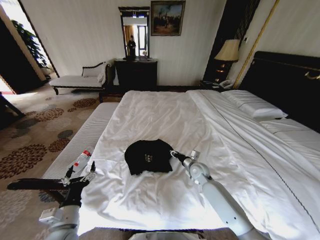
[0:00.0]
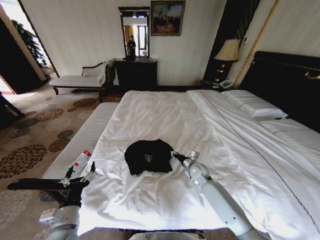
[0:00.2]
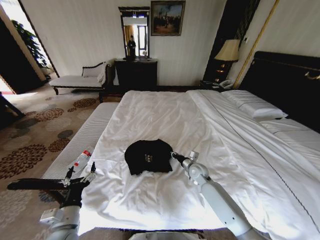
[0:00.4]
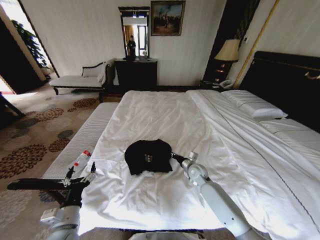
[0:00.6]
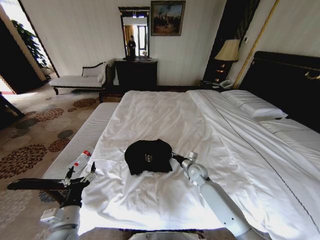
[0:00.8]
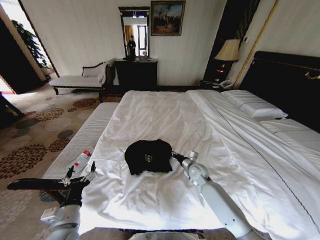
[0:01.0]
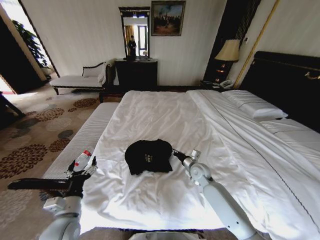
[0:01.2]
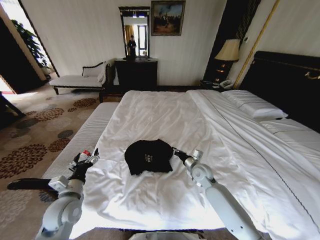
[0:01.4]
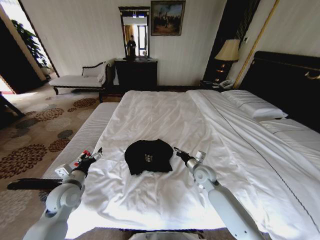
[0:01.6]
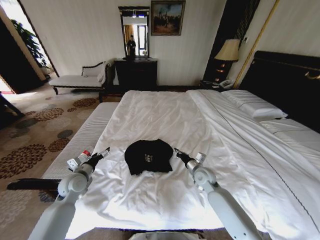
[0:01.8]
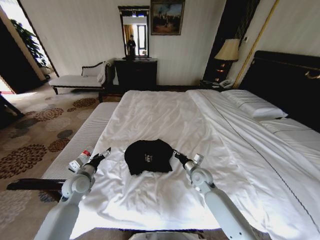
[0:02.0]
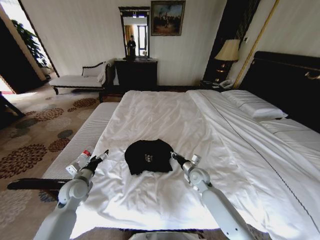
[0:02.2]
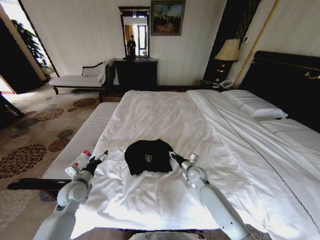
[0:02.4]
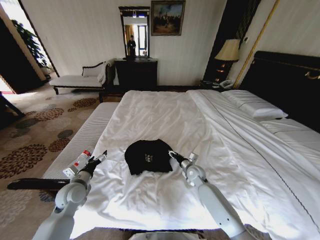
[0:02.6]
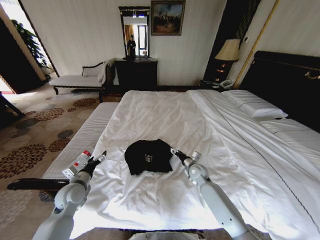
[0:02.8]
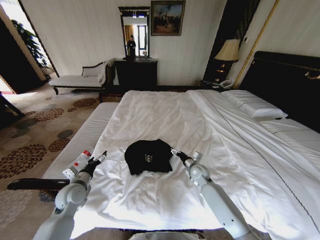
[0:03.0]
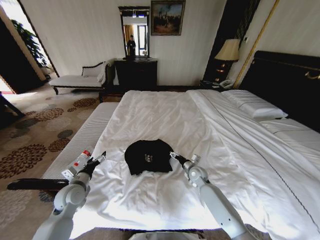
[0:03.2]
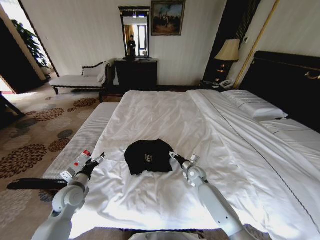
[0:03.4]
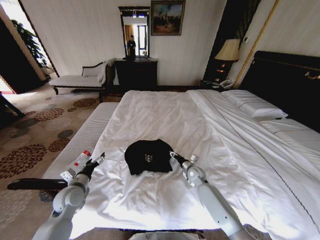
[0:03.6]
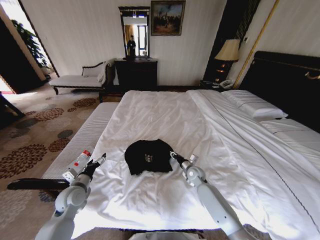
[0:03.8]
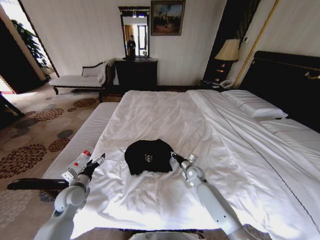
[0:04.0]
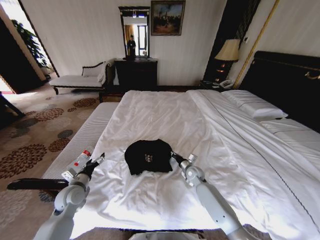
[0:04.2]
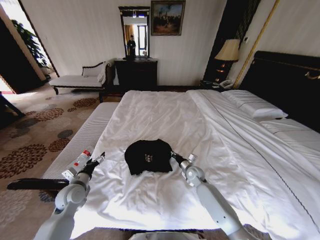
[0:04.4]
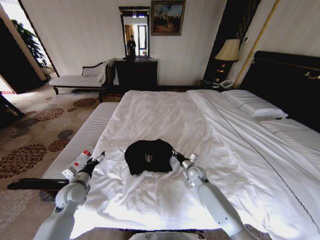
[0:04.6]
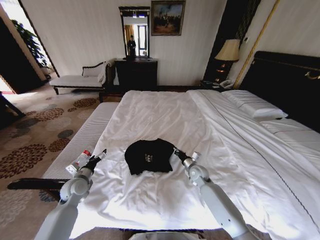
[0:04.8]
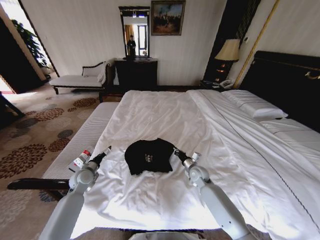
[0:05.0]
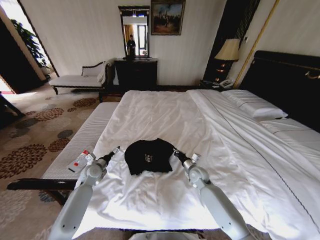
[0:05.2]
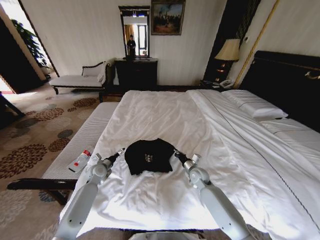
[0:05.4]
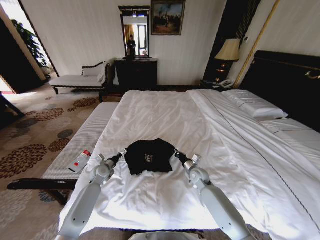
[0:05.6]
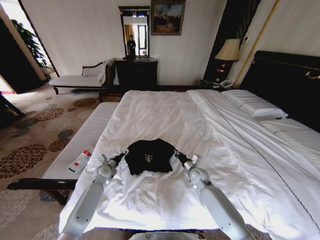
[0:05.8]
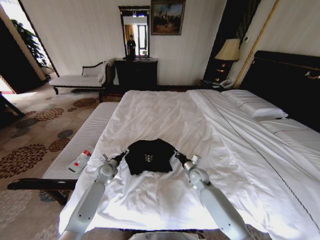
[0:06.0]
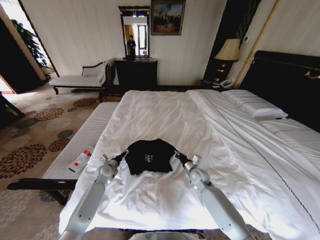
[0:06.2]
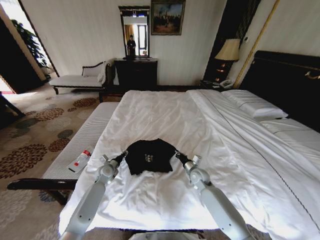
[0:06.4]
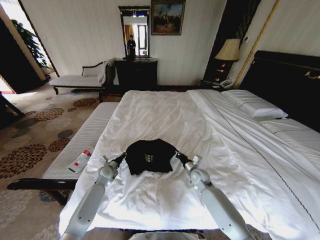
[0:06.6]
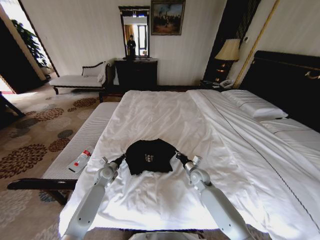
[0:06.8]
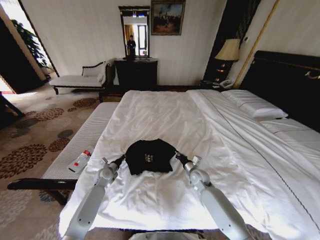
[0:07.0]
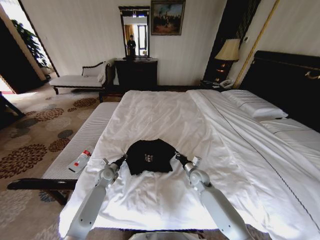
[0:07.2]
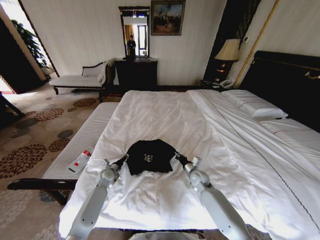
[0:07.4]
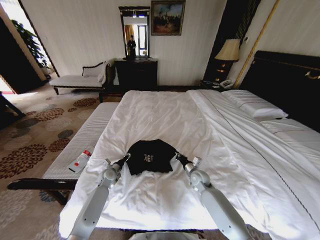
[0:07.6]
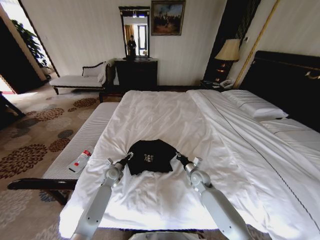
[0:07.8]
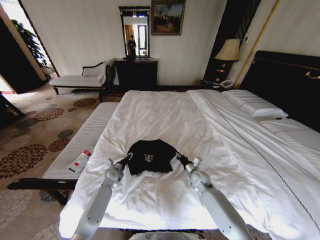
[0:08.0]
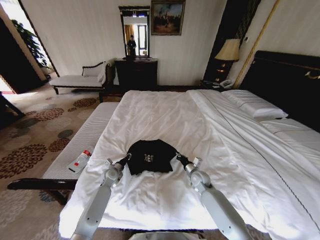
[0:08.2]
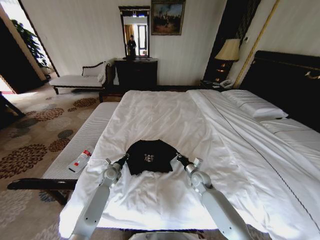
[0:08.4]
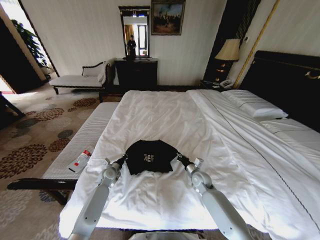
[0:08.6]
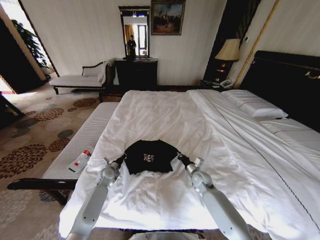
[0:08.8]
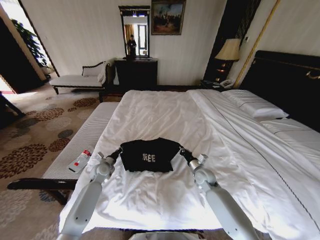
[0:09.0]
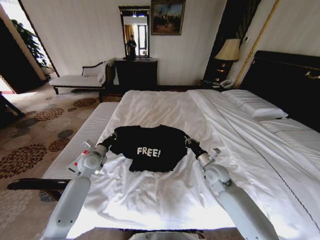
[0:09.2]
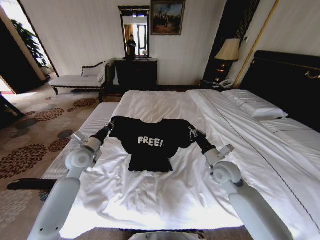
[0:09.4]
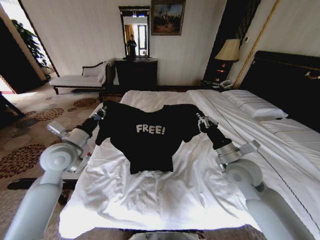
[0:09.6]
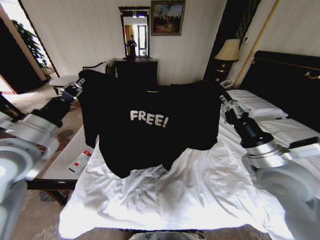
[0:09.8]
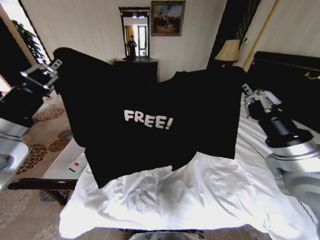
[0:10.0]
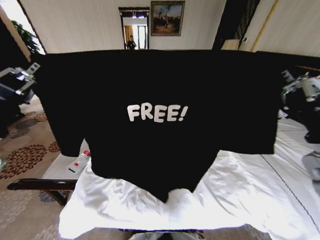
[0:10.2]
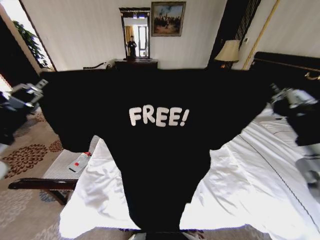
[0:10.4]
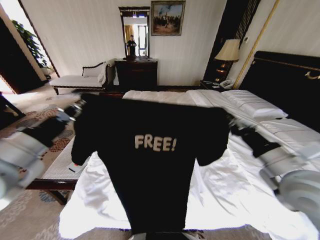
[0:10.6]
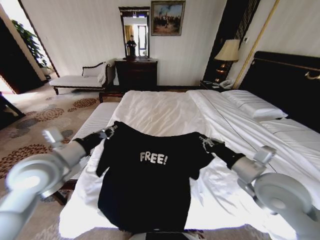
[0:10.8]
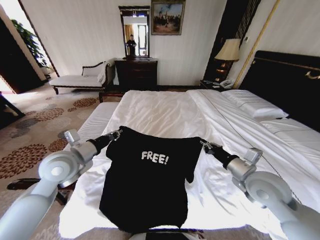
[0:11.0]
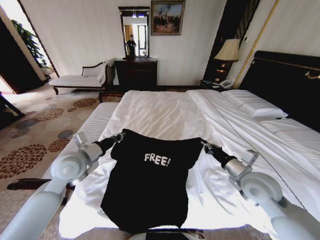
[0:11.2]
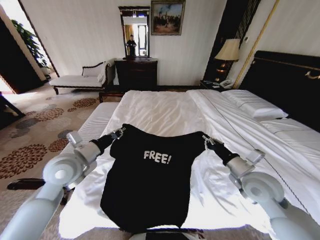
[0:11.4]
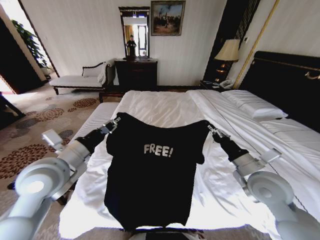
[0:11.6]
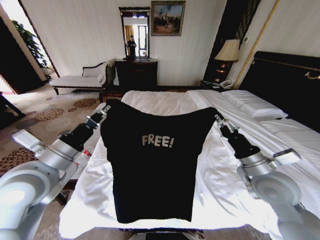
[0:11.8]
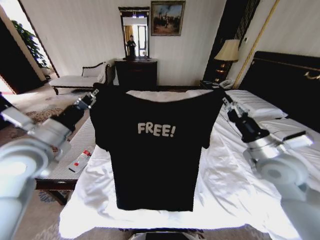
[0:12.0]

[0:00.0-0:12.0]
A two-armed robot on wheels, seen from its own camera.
Task of the whole recording: Fold the clothes on the bed.
0.0 to 1.6 s: The left gripper goes roughly 15 cm forward; the right gripper closes its fingers.
1.6 to 3.0 s: The right gripper ends up some 5 cm from where it was, and opens its fingers.
3.0 to 4.4 s: The right gripper closes up.
4.4 to 6.0 s: The left gripper is displaced forward, downward and to the right by about 15 cm.
6.0 to 7.6 s: The left gripper closes, then opens again.
7.6 to 9.0 s: The left gripper goes roughly 5 cm upward, and closes up.
9.0 to 10.4 s: The two grippers go some 40 cm upward and backward.
10.4 to 12.0 s: The left gripper moves forward and to the right, some 10 cm, and reaches approximately 15 cm downward, then returns, while the right gripper moves downward and forward, about 10 cm.

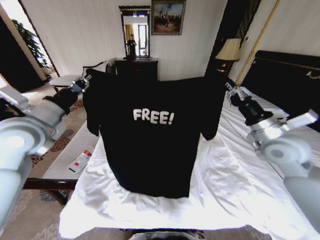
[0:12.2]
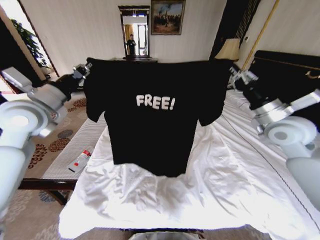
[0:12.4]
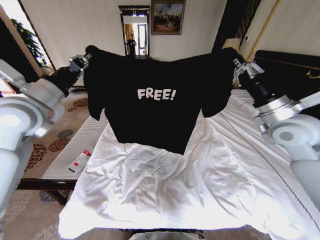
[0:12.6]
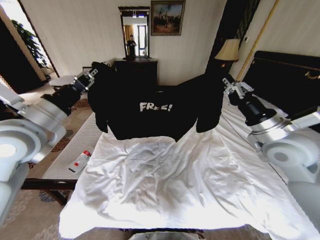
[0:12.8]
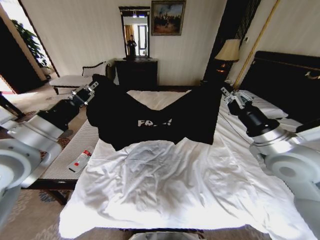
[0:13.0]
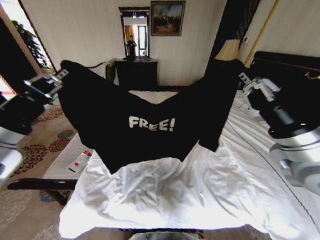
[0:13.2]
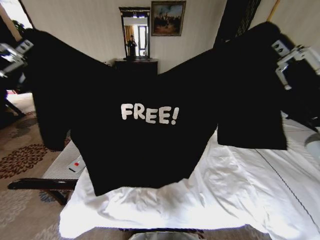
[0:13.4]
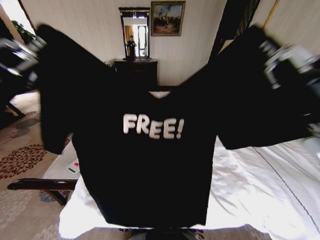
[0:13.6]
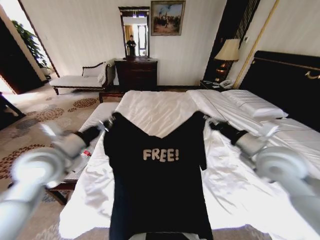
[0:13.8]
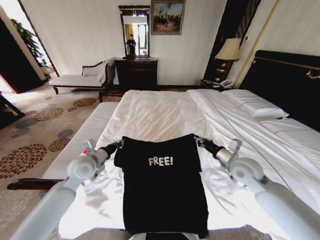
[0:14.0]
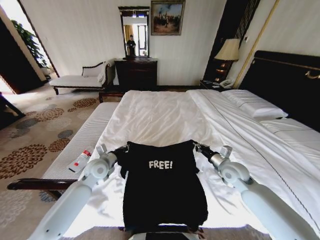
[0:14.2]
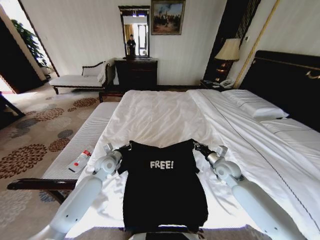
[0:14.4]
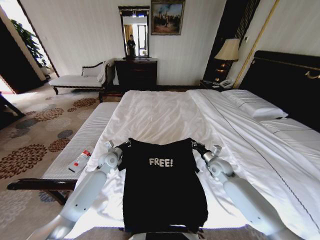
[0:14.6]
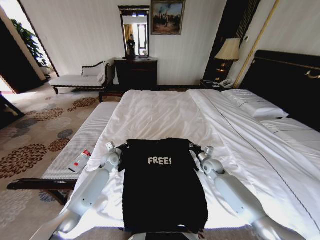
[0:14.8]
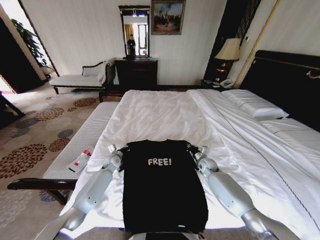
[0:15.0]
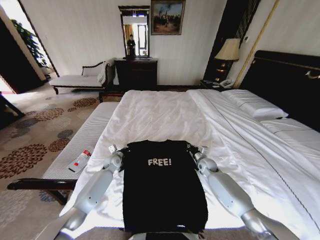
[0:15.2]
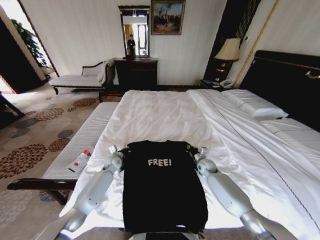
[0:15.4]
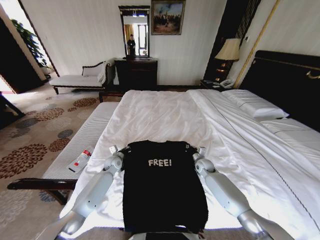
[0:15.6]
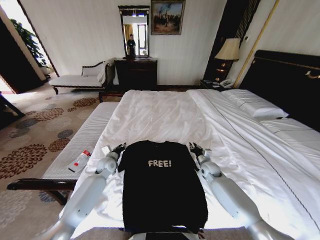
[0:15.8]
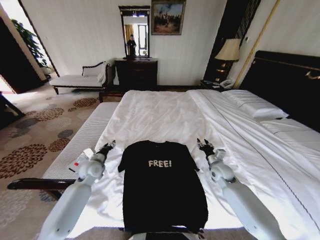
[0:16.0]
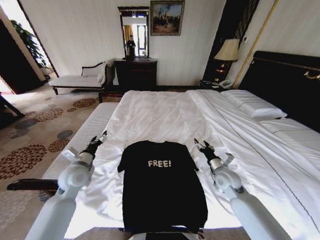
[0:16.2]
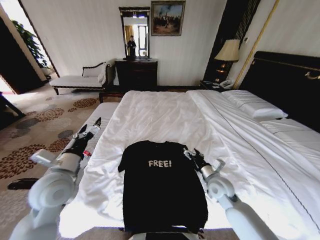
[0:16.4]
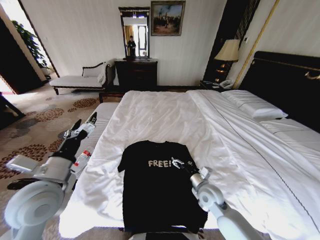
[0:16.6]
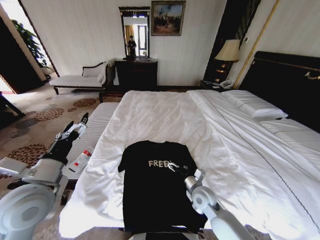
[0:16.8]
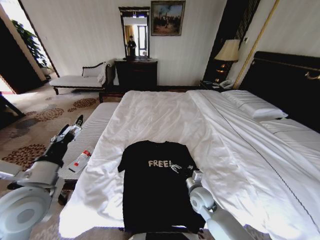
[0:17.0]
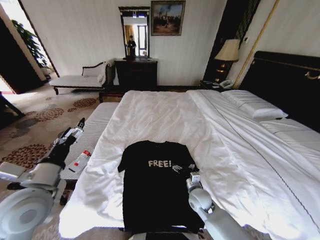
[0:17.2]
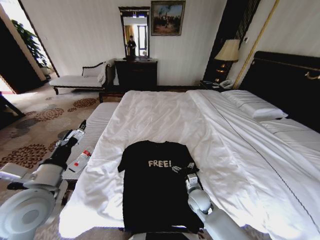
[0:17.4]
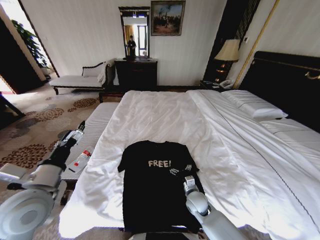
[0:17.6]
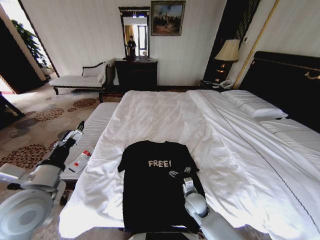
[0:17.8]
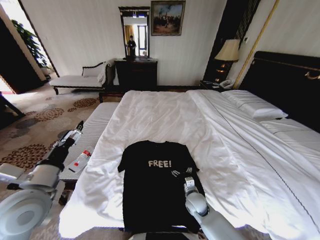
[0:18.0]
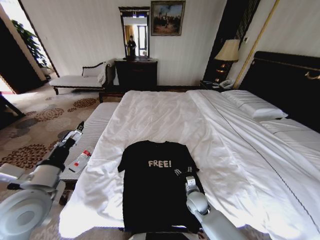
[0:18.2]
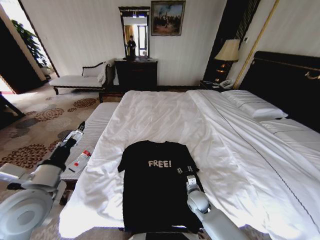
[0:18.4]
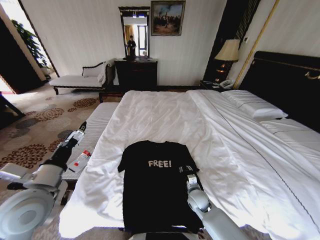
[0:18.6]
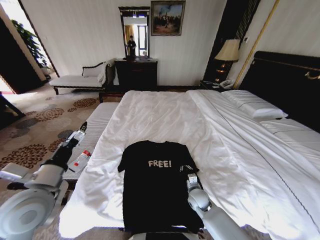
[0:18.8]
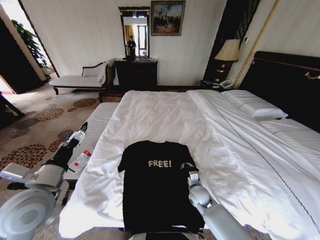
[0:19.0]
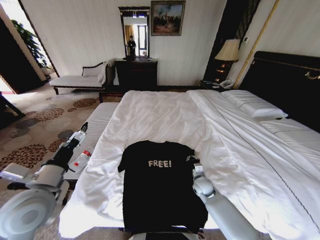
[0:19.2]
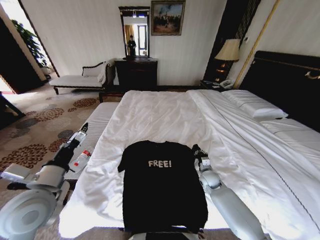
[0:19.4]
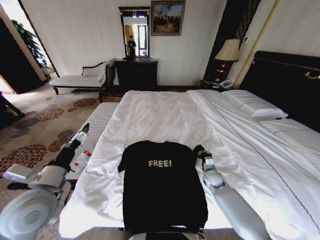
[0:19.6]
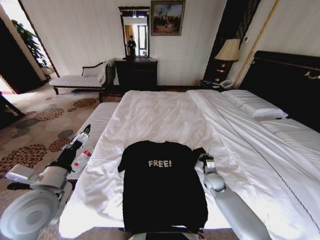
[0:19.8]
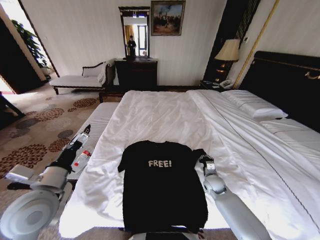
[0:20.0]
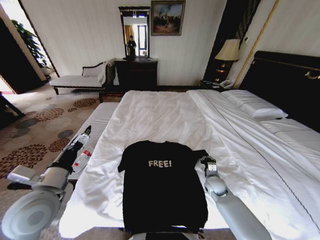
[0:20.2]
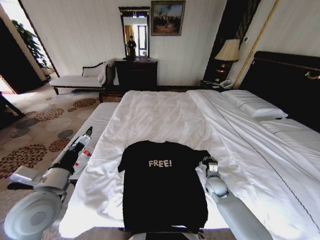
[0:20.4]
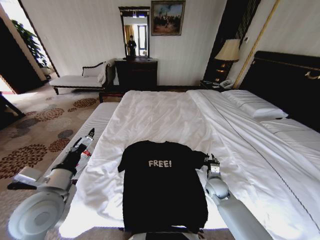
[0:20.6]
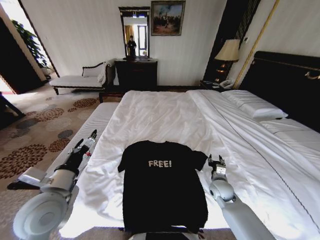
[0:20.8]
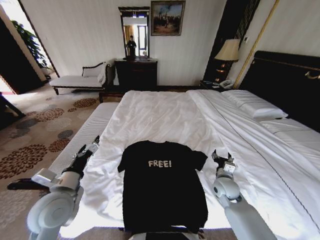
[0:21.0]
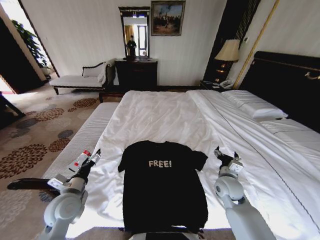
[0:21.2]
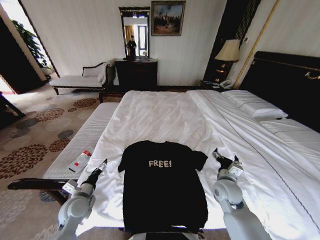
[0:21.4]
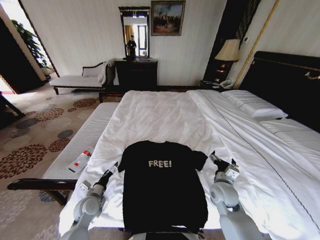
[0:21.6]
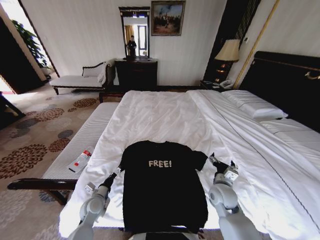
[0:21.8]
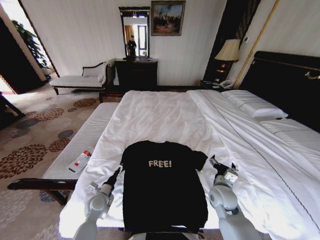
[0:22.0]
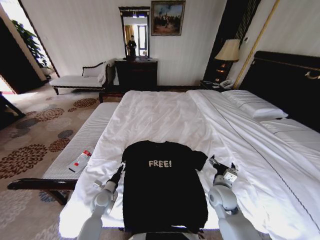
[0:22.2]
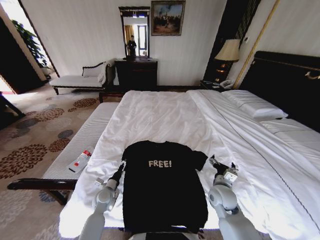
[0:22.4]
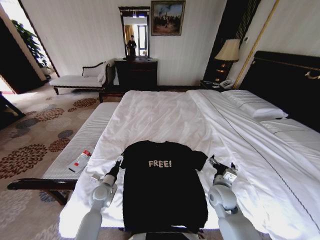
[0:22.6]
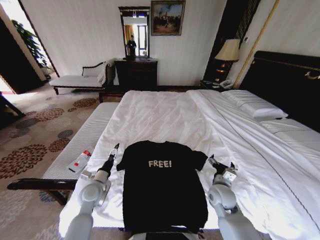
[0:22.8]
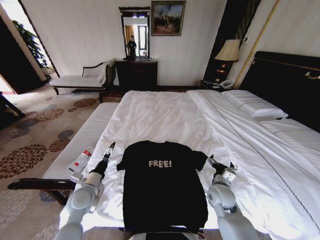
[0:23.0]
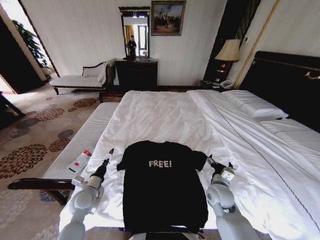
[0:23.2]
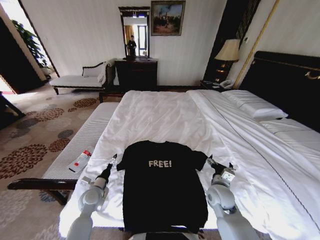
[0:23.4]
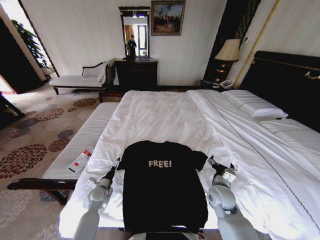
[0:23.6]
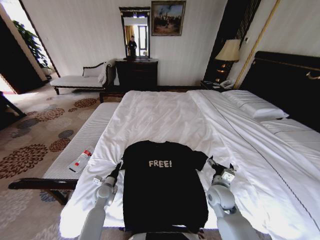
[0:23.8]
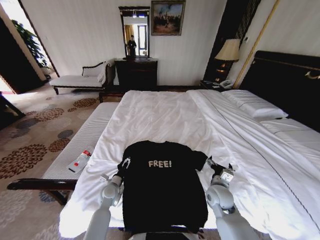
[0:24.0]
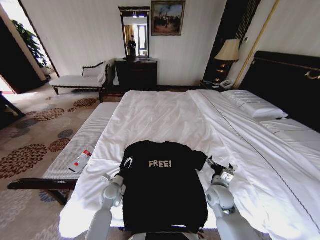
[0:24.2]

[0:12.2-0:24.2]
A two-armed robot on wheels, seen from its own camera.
Task of the whole recording: Fold the clothes on the bed.
12.2 to 13.8 s: The right gripper goes forward and backward, roughly 15 cm each way, reversing 2 times. Meanwhile the left gripper moves forward and backward over approximately 20 cm, changing direction 2 times.
13.8 to 15.2 s: Both grippers move downward and forward, about 40 cm.
15.2 to 16.6 s: The right gripper travels backward and to the left by roughly 20 cm, and opens up, while the left gripper moves backward and upward, about 35 cm, and opens up.
16.6 to 18.2 s: The right gripper heads downward, covering approximately 10 cm.
18.2 to 19.8 s: The right gripper goes roughly 15 cm to the right and forward, and closes its fingers.
19.8 to 21.2 s: The left gripper is displaced downward by roughly 10 cm. The right gripper is displaced upward and backward by about 15 cm, and opens its fingers.
21.2 to 22.6 s: The left gripper heads downward, forward and to the right, covering some 15 cm.
22.6 to 24.2 s: The left gripper goes upward and returns, roughly 10 cm each way.
